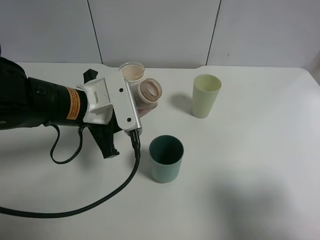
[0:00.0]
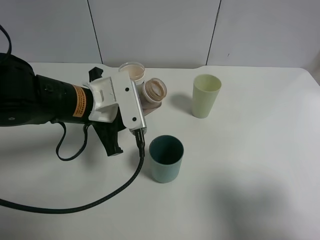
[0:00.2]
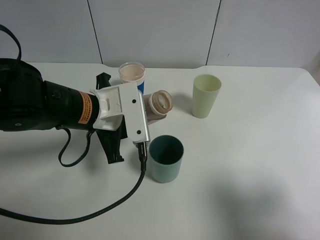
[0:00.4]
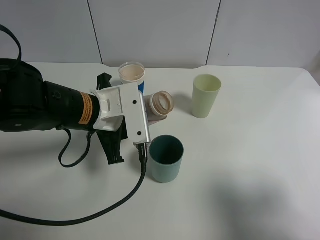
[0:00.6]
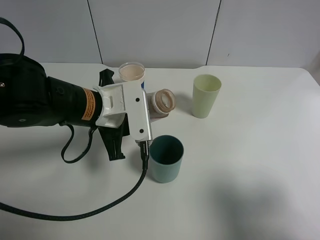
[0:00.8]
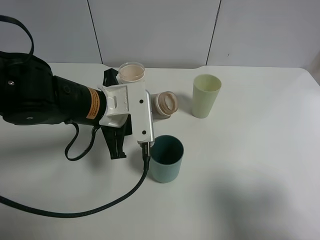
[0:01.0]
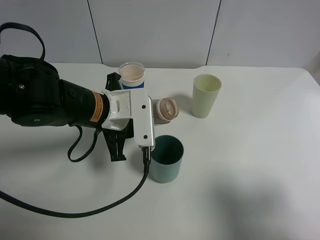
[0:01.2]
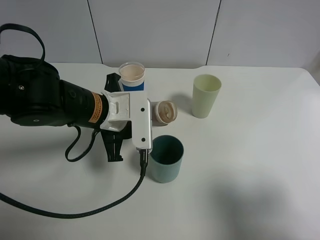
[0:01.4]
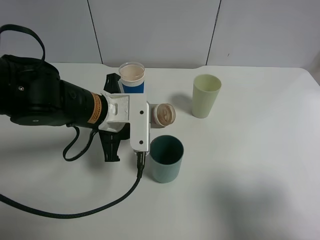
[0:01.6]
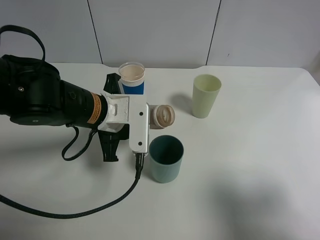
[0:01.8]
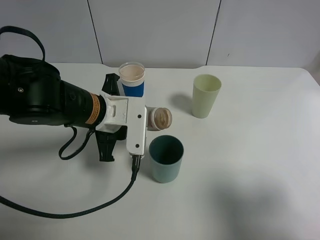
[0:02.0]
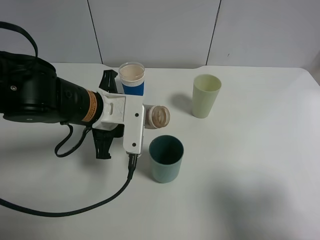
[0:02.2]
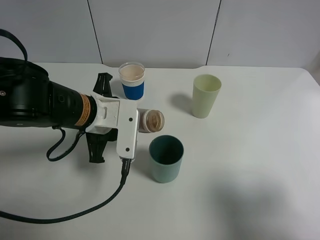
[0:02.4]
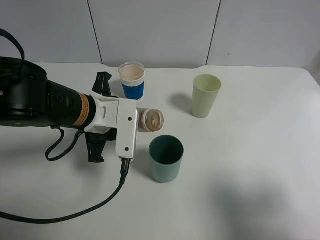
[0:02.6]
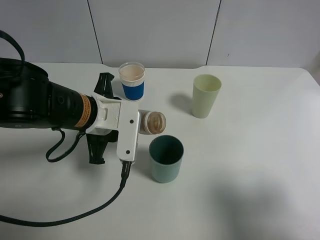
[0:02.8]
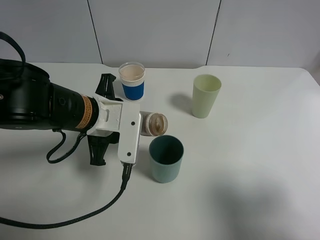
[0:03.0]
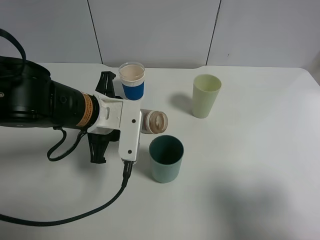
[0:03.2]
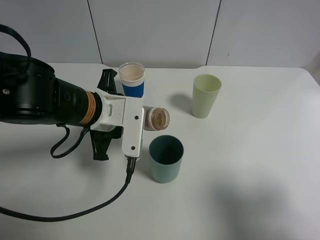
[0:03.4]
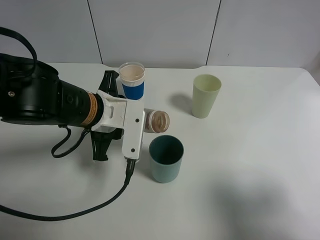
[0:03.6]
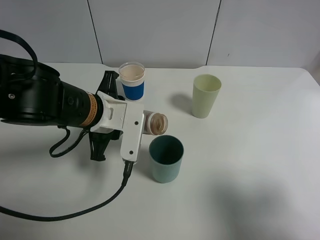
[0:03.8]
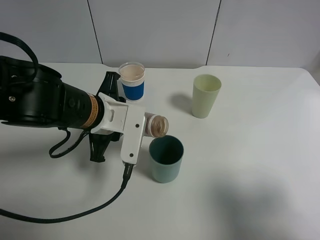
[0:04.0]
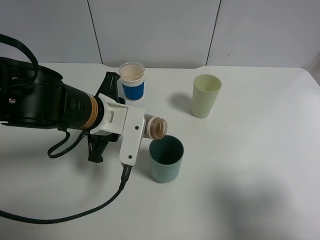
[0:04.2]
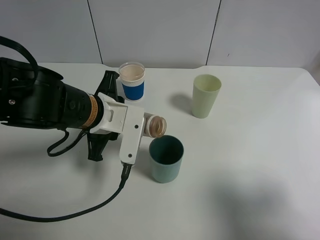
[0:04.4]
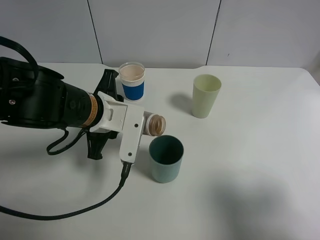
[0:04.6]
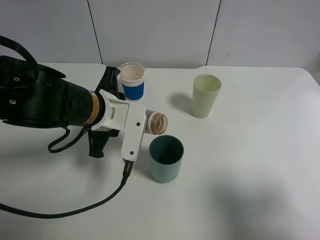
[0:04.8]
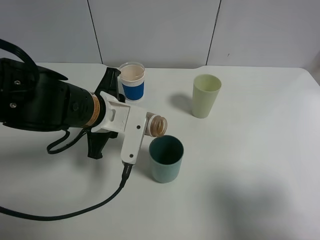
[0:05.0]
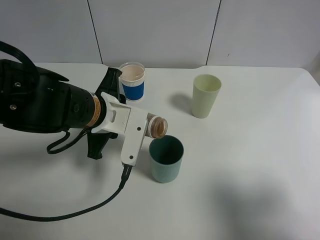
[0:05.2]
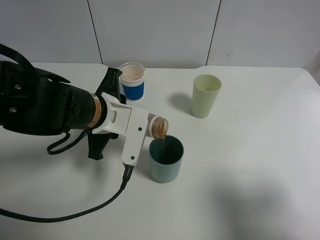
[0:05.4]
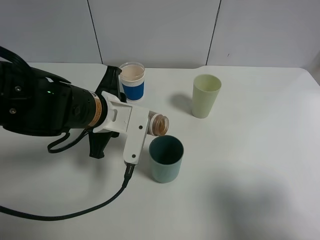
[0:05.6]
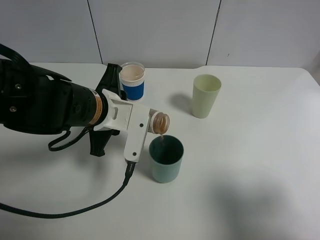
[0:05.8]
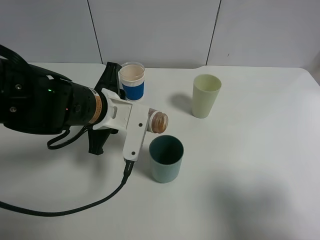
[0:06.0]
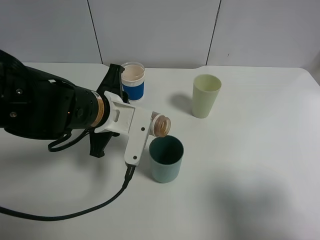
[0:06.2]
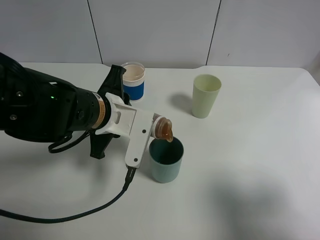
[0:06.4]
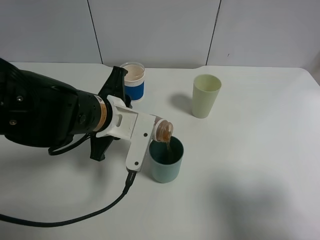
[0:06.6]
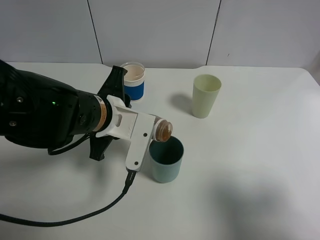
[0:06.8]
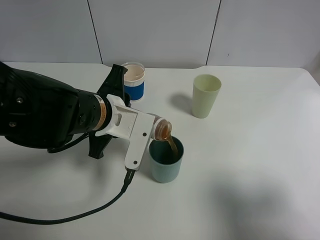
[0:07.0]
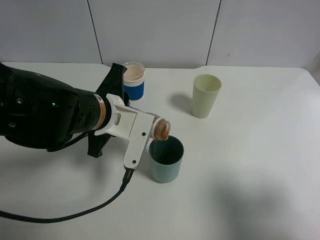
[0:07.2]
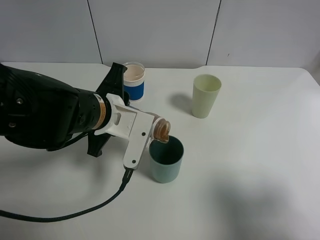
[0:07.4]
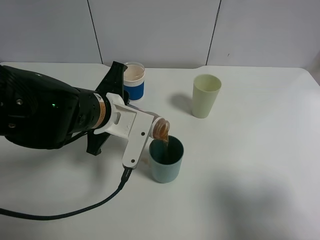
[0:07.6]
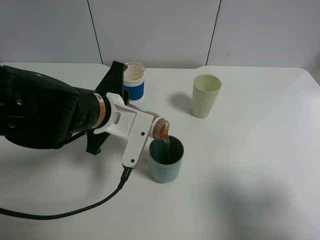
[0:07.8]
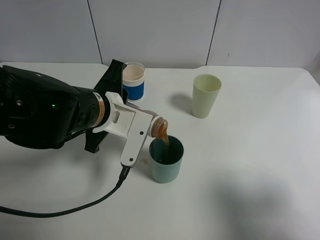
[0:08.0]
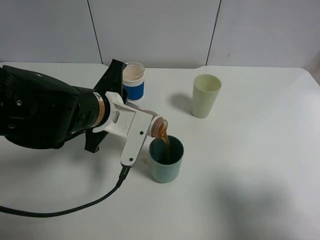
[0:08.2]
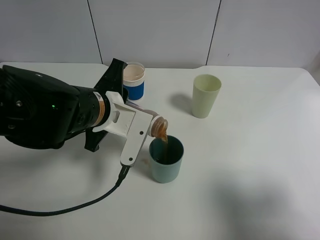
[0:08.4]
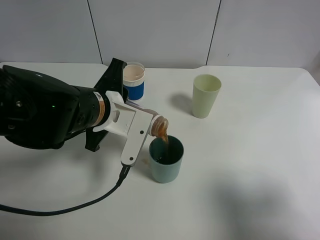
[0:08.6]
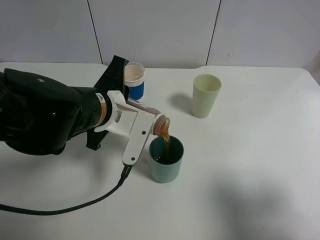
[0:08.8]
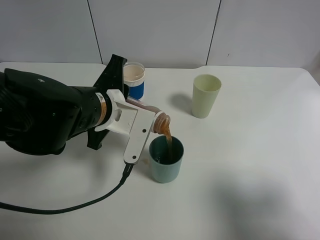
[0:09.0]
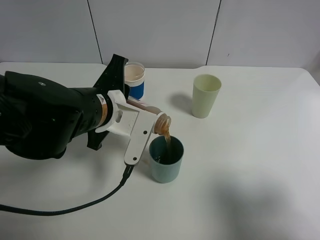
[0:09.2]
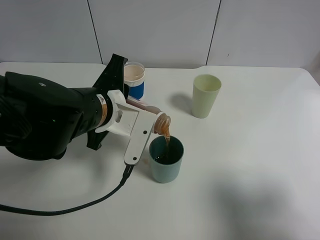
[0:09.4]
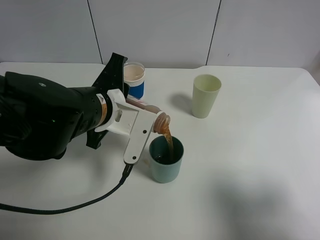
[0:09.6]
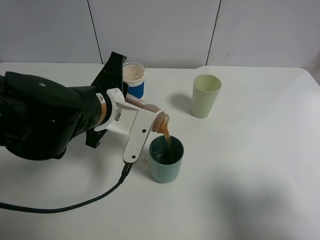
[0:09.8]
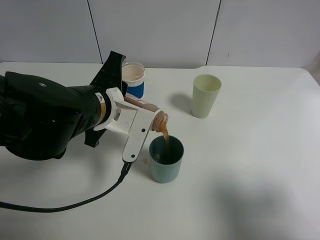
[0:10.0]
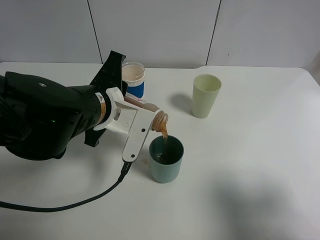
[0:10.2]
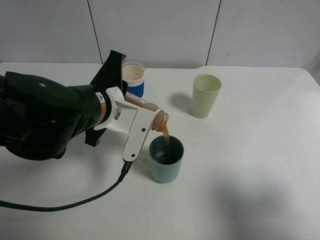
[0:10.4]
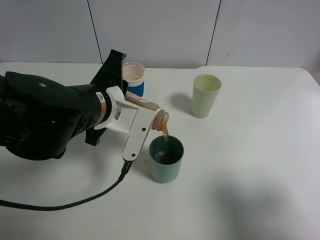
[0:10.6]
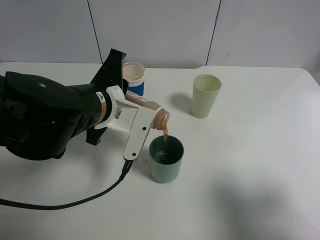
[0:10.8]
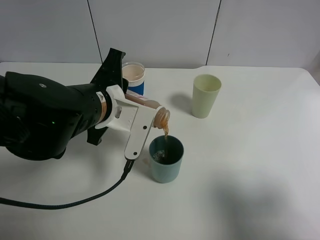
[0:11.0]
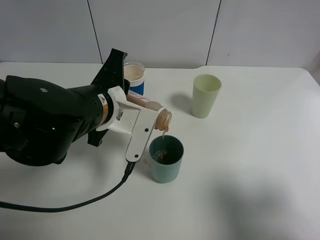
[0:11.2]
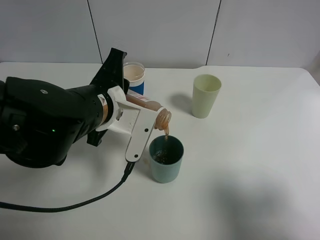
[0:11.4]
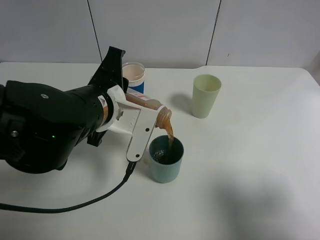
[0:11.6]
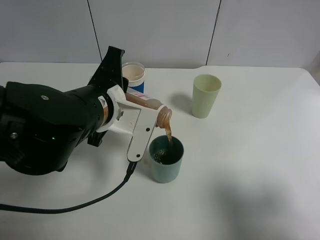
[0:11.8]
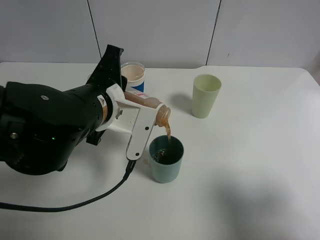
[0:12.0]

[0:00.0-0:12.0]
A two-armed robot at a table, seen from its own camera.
Task of the whole recording: use a gripper to hold the bottle of the drink and pour it into a random cup.
0:00.0 to 0:01.6: The grippers make only small movements.
0:01.6 to 0:04.4: The grippers move only a little.
0:04.4 to 0:09.0: There are only small adjustments of the grippers.
0:09.0 to 0:10.4: Neither gripper changes place.
0:10.4 to 0:12.0: The grippers stay close to where they were, moving slightly.

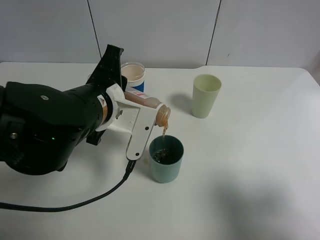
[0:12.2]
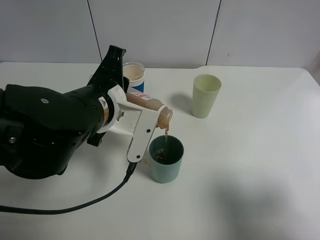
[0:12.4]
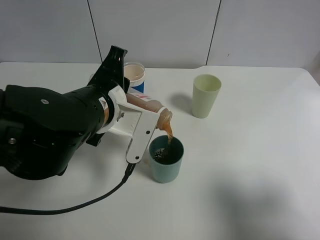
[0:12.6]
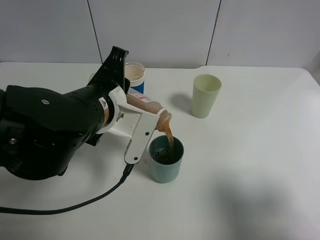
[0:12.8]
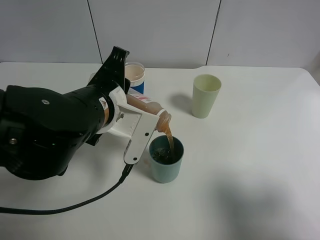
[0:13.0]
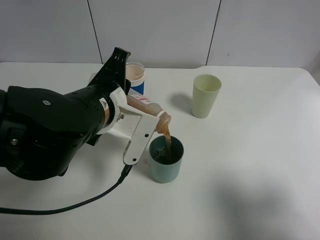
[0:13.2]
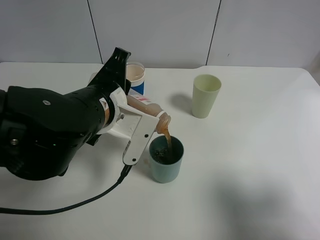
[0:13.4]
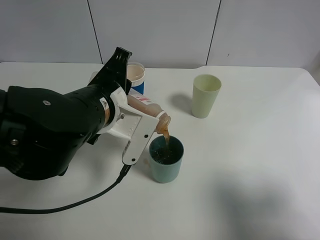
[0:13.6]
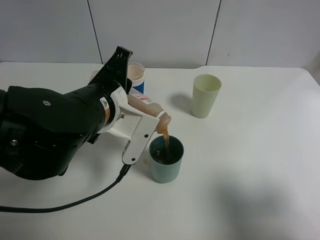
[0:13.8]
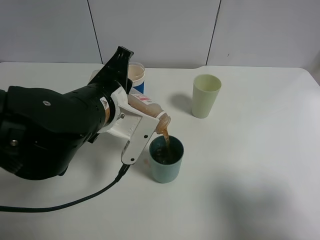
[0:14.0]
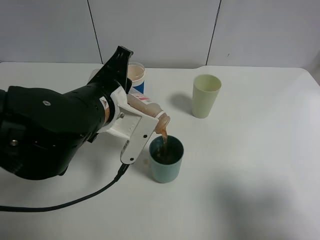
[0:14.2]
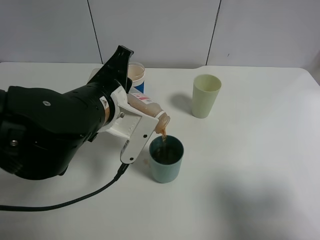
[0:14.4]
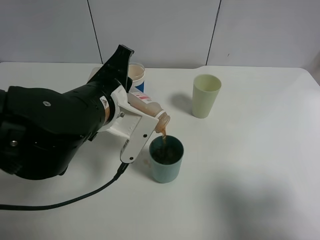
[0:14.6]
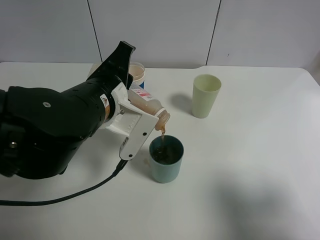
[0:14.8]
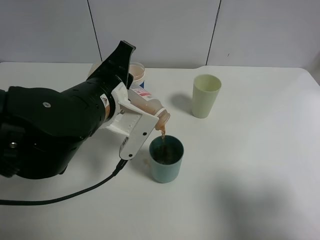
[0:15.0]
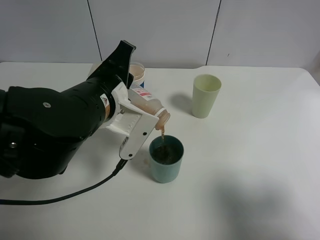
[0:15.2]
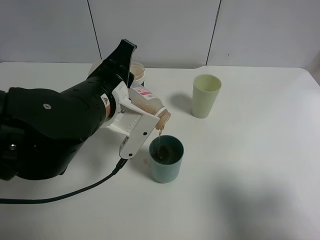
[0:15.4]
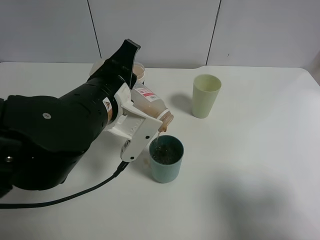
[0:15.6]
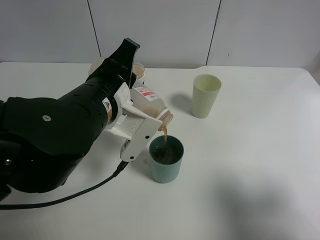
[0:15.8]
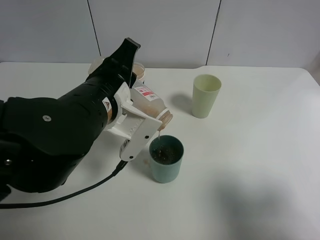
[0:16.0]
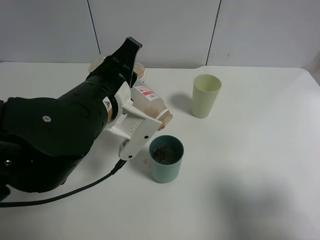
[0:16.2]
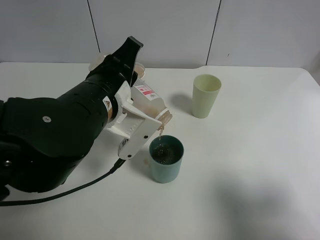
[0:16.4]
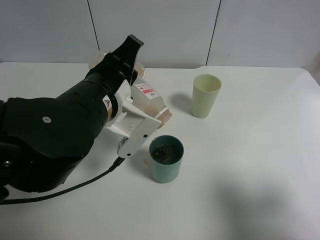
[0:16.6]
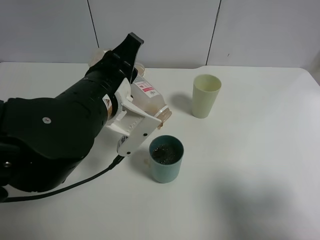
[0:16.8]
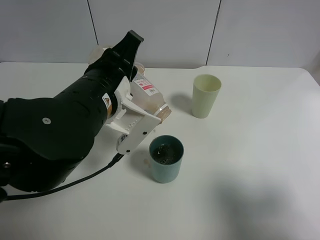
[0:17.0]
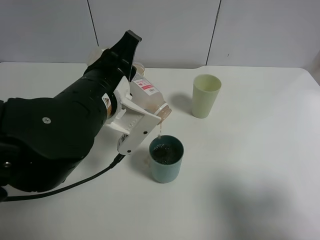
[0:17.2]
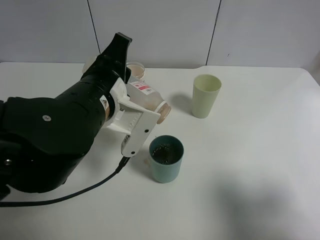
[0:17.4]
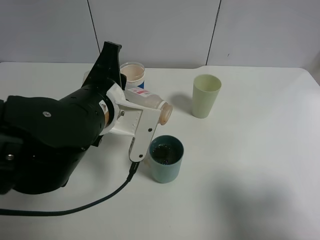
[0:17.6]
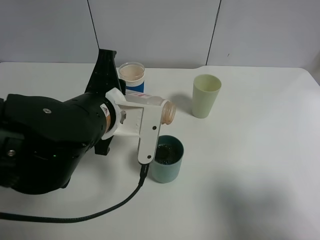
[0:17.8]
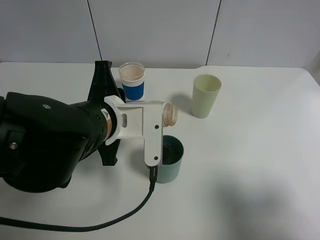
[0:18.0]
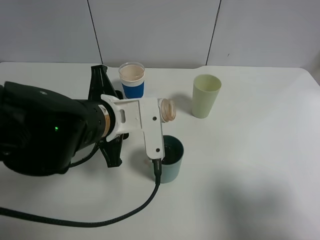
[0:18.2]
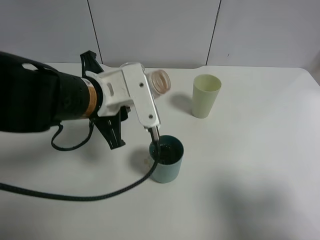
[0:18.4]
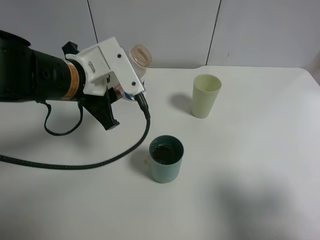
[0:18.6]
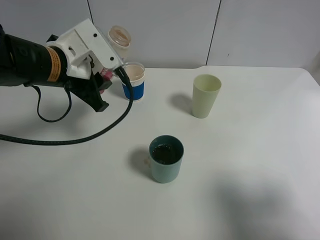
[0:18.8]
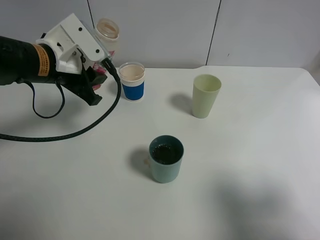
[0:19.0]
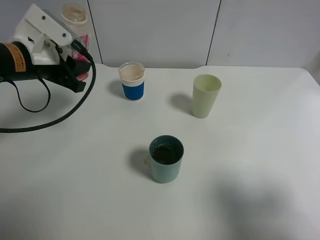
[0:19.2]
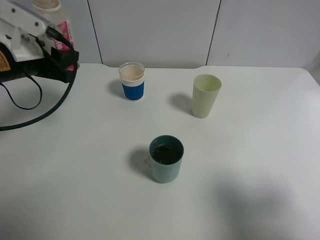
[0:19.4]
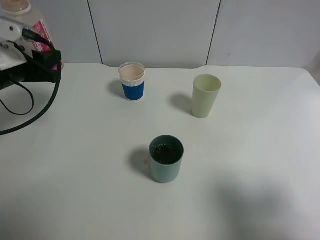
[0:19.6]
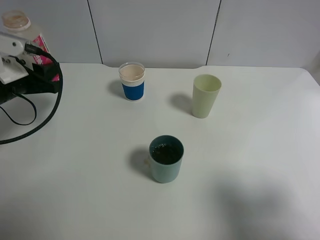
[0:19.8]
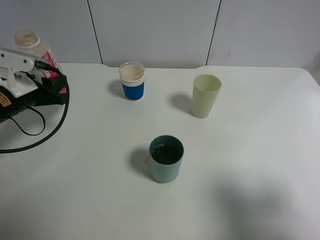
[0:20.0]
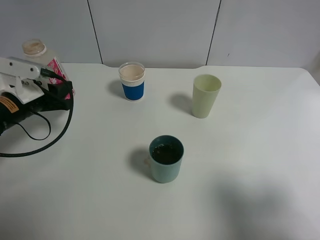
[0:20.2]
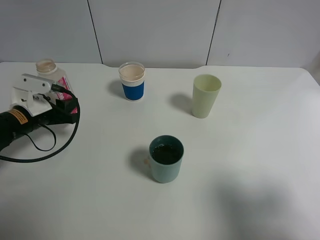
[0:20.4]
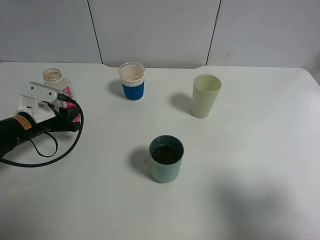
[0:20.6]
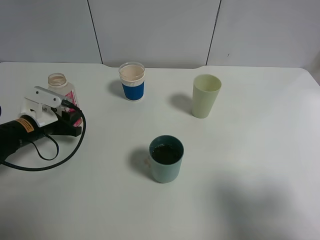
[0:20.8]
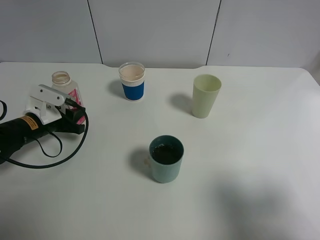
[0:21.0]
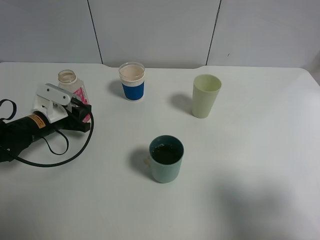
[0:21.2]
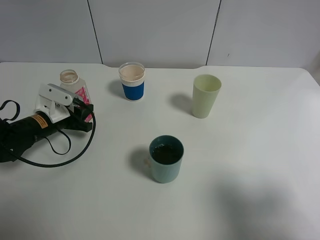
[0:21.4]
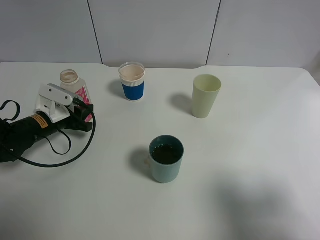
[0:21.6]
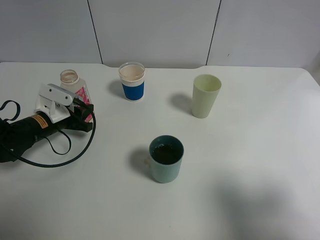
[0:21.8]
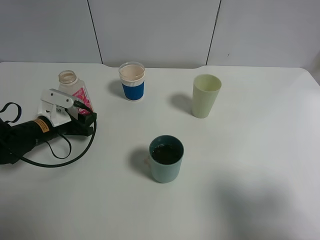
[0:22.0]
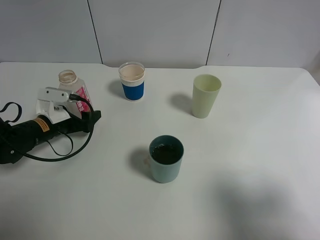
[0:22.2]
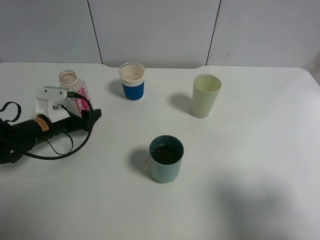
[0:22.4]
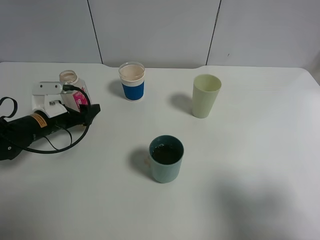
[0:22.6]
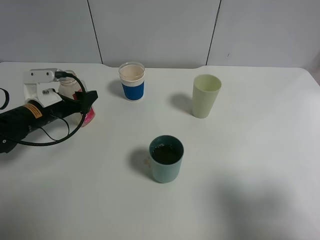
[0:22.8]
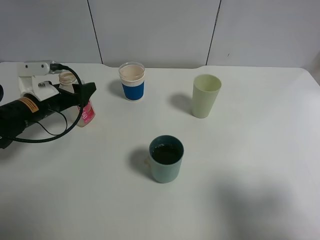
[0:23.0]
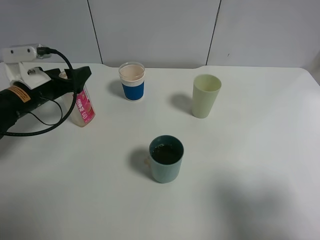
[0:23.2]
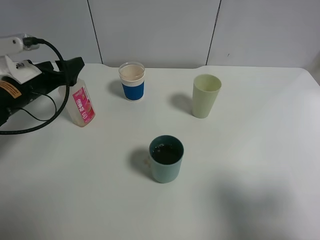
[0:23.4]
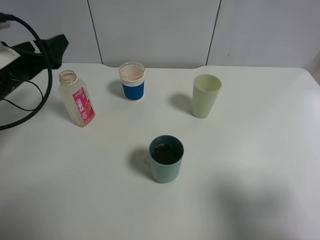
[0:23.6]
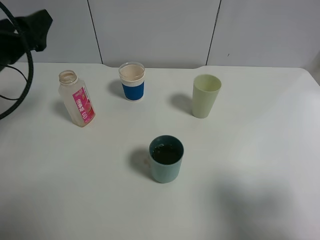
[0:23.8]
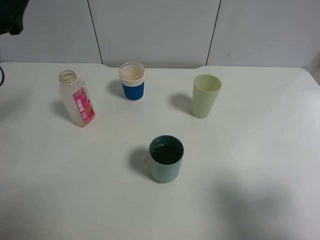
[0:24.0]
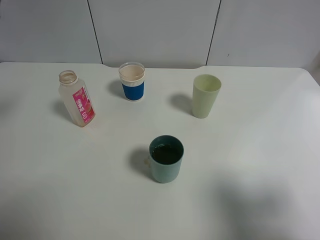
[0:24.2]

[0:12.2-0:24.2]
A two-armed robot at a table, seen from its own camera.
Task of the whole recording: use a gripper to hold the bottle of the drink and pour it into a random cup.
Step, 0:12.2 to 0:18.4: Pour the cranberry juice into the cyan cup with the left gripper.
Step, 0:18.6 to 0:23.2: Place the cranberry juice bottle on the table with the left gripper.
0:12.2 to 0:15.2: The grippers make only small movements.
0:15.2 to 0:16.6: The grippers move only a little.
0:18.2 to 0:19.8: The left gripper travels to the left and forward by roughly 20 cm.
0:19.8 to 0:21.2: The left gripper shifts some 10 cm downward.
0:21.2 to 0:22.6: The left gripper opens.
0:22.6 to 0:24.2: The left gripper goes some 25 cm upward and backward.
